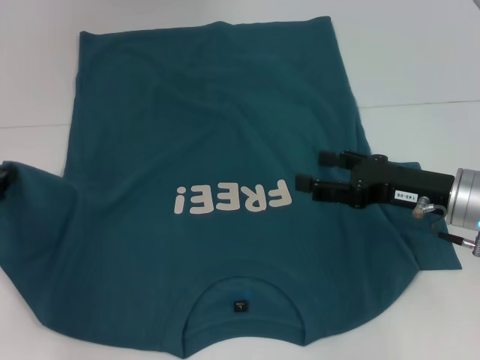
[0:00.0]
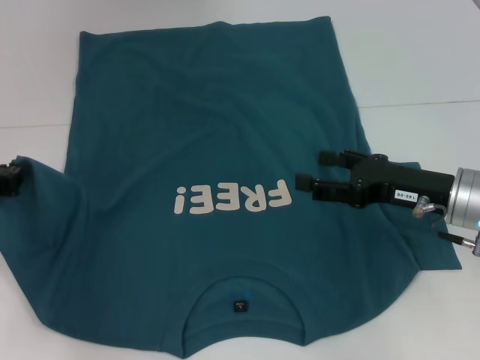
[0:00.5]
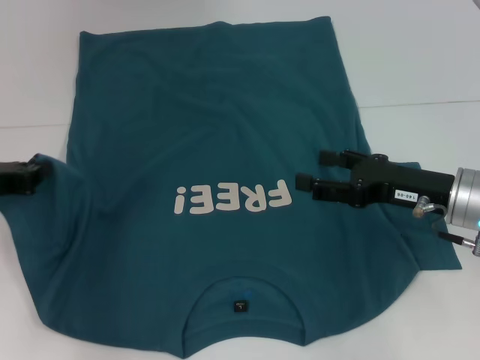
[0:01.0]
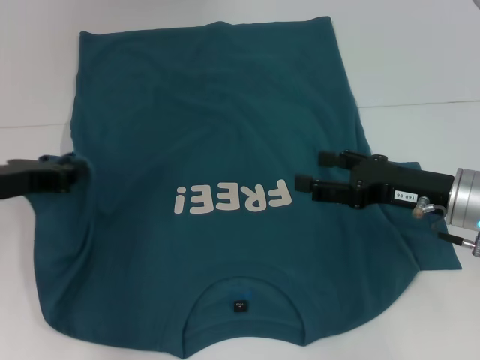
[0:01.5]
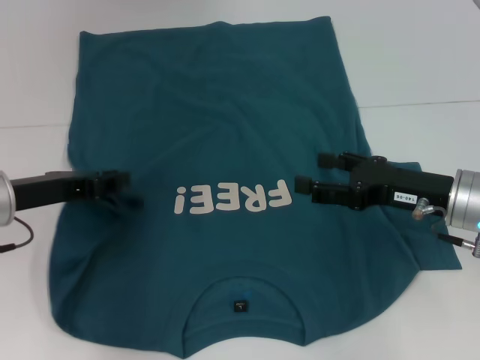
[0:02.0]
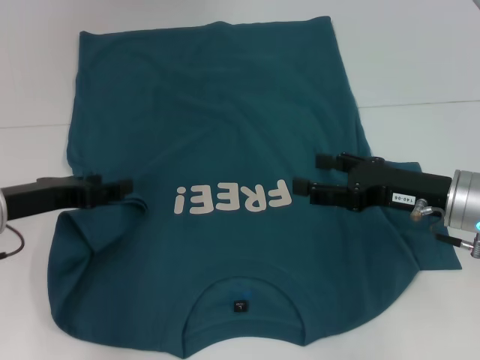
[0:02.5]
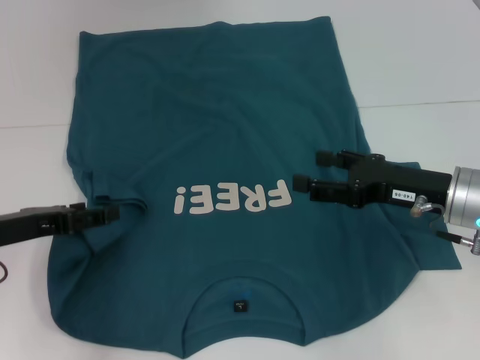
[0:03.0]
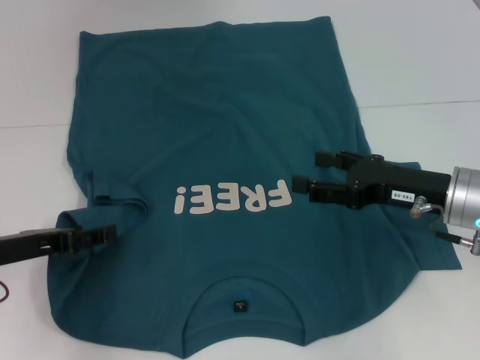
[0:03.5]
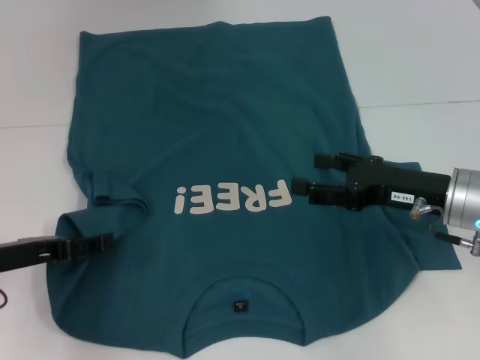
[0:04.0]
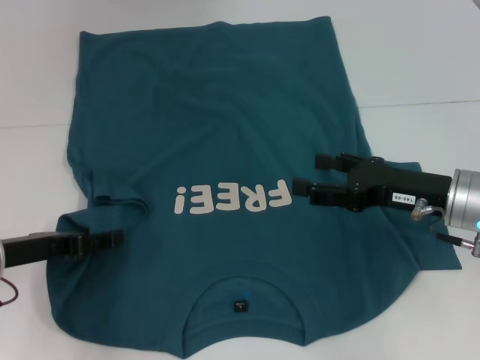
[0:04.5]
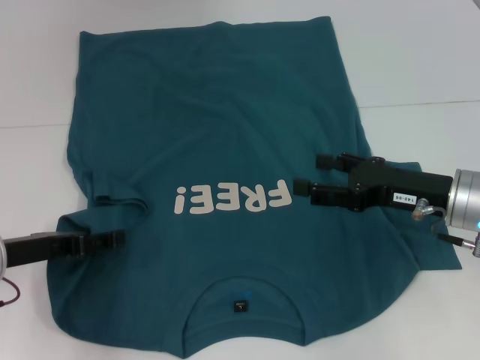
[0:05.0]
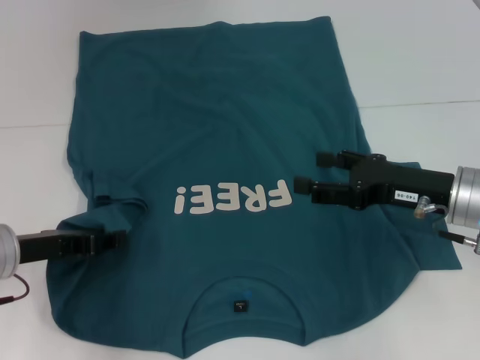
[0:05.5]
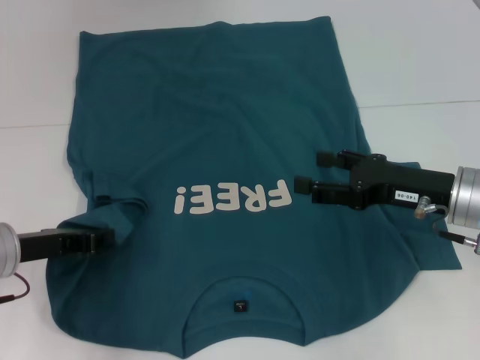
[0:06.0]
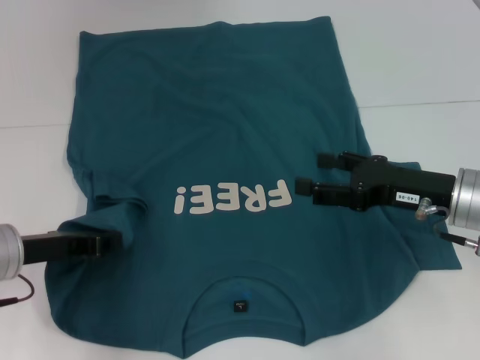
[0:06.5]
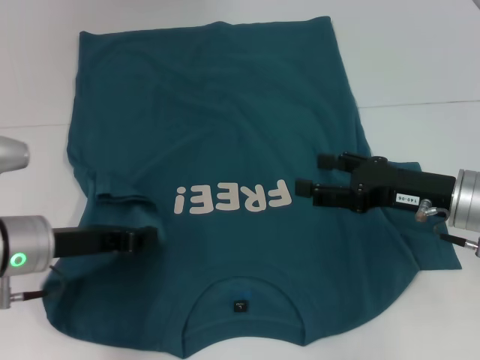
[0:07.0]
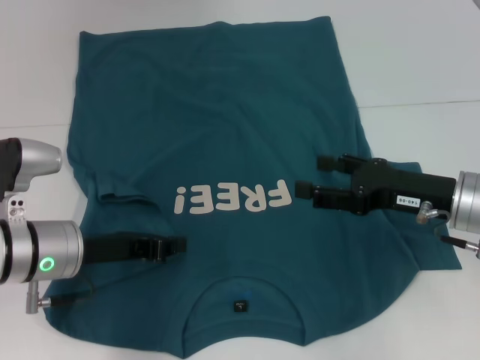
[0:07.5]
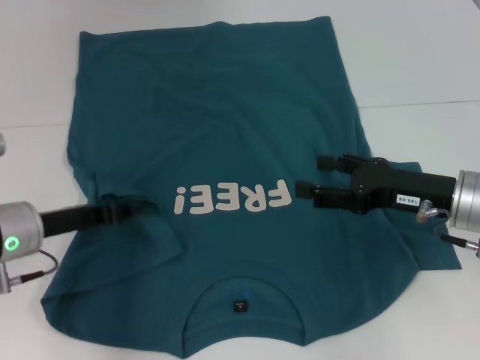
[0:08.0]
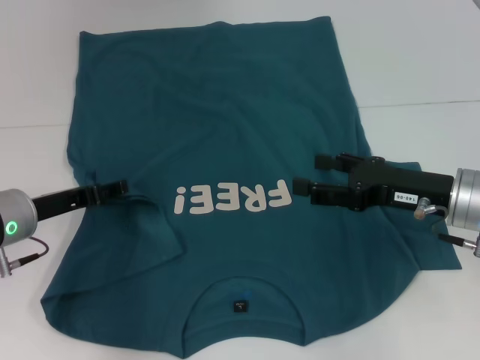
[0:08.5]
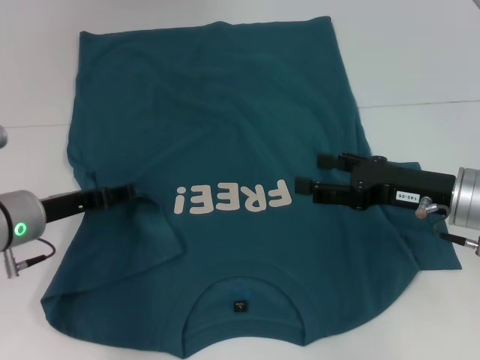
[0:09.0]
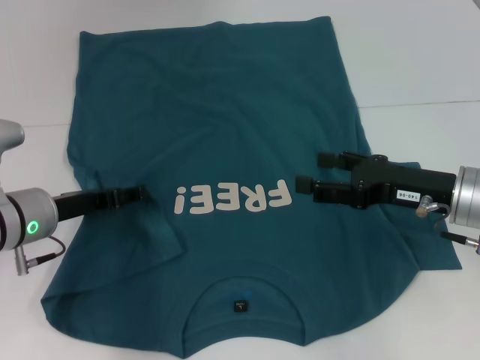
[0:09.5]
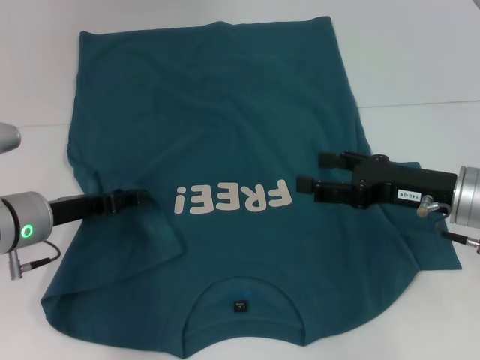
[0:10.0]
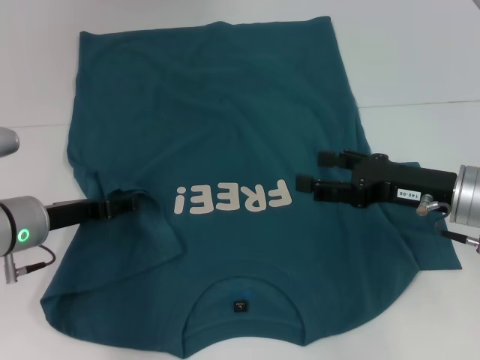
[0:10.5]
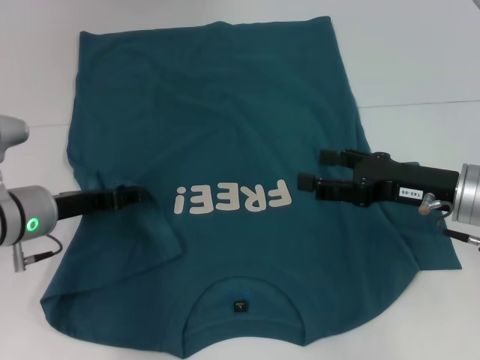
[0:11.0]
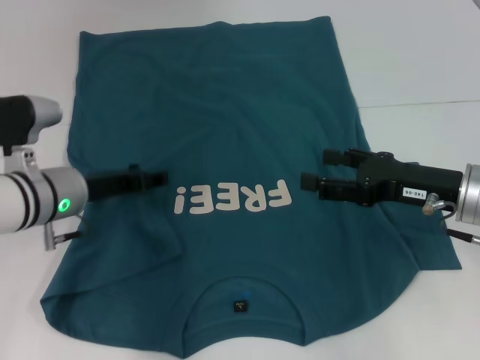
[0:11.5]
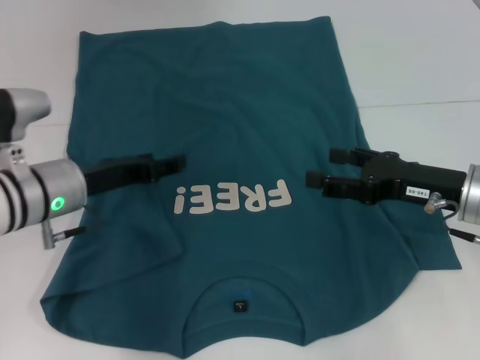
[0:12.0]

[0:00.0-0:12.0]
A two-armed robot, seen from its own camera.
Step, 0:00.0 to 0:12.0: Fold the bottom left sleeve with your left hand.
0:00.0 to 0:02.0: The left gripper heads to the right, covering approximately 10 cm.
0:02.0 to 0:04.0: The left gripper changes place by some 5 cm, and opens its fingers.
0:04.0 to 0:06.0: The left gripper closes up.
0:06.0 to 0:08.0: There are only small adjustments of the grippers.
0:08.0 to 0:10.0: The left gripper opens.
0:10.0 to 0:12.0: There are only small adjustments of the grippers.

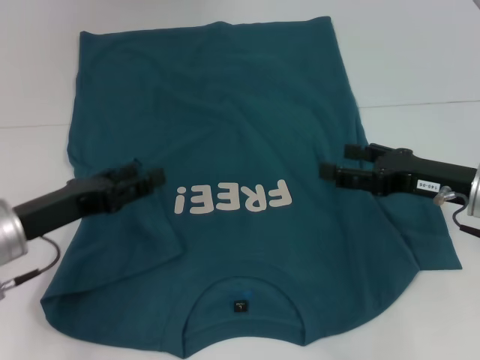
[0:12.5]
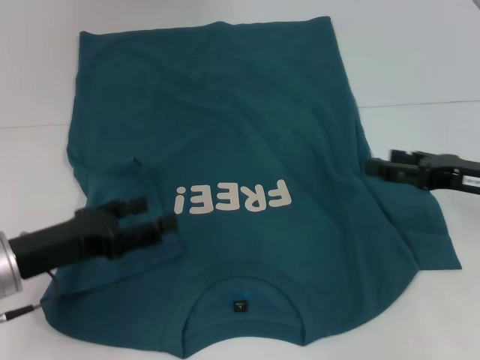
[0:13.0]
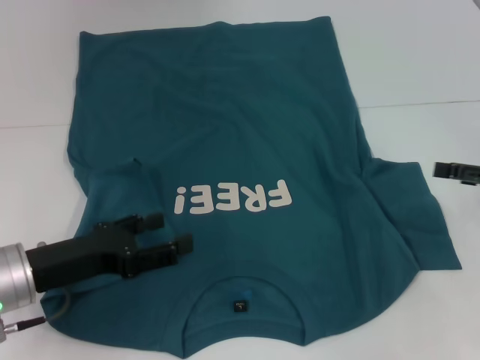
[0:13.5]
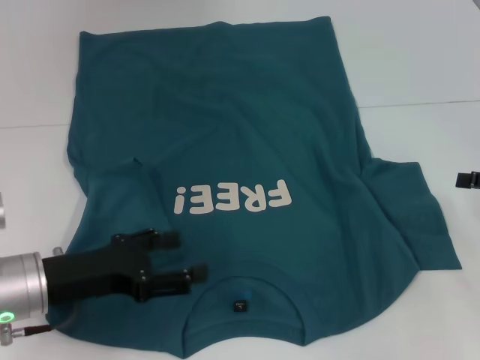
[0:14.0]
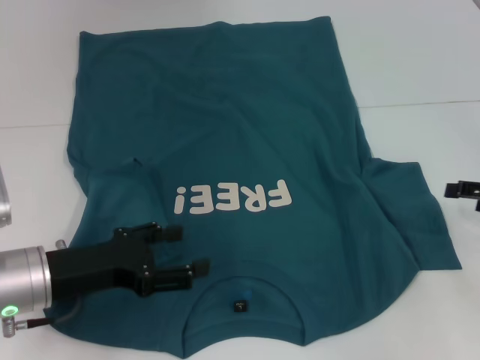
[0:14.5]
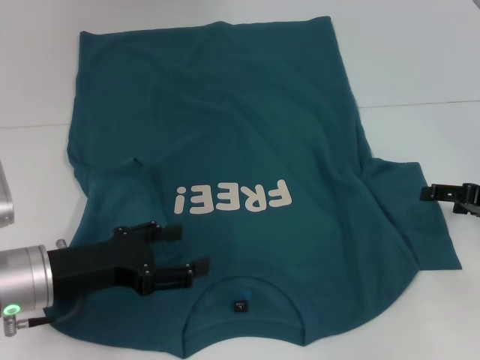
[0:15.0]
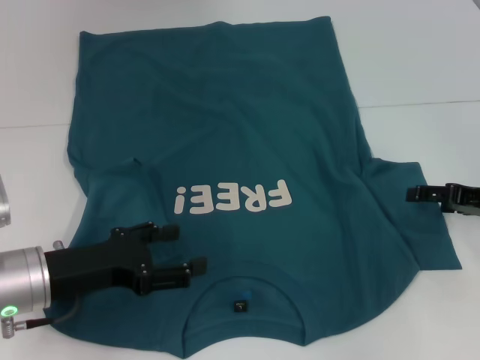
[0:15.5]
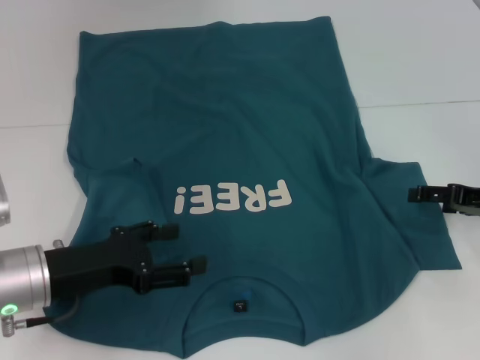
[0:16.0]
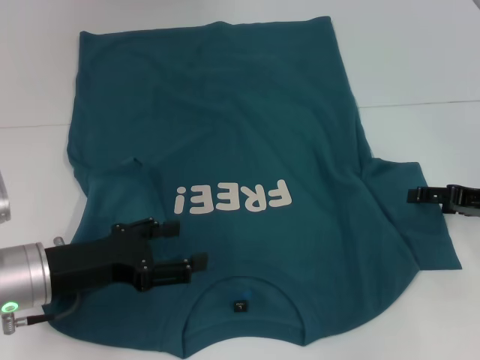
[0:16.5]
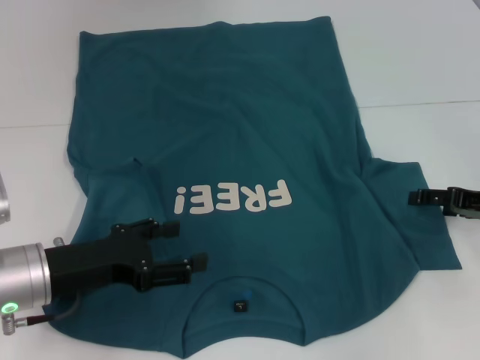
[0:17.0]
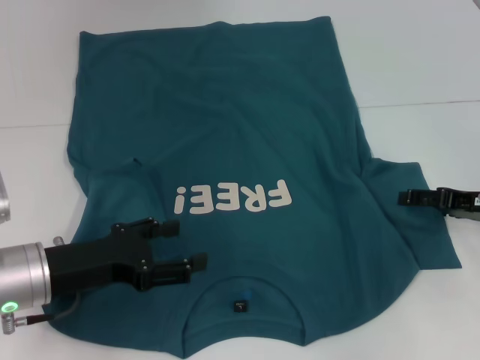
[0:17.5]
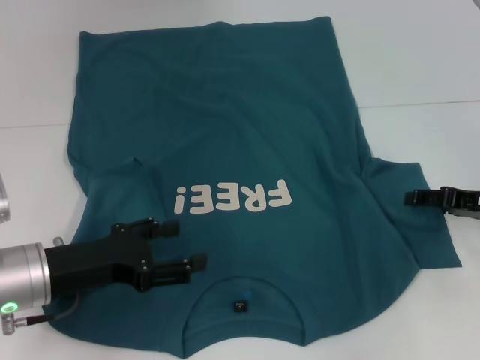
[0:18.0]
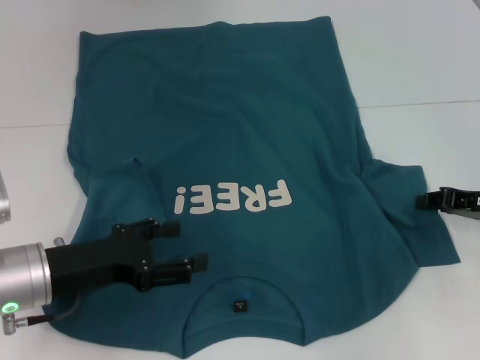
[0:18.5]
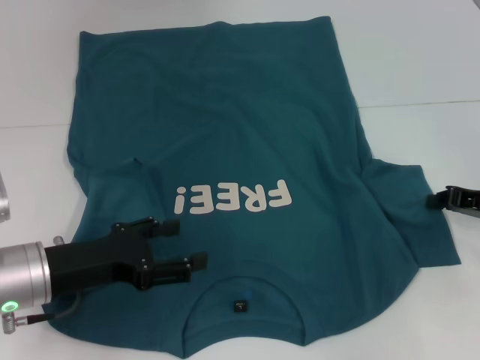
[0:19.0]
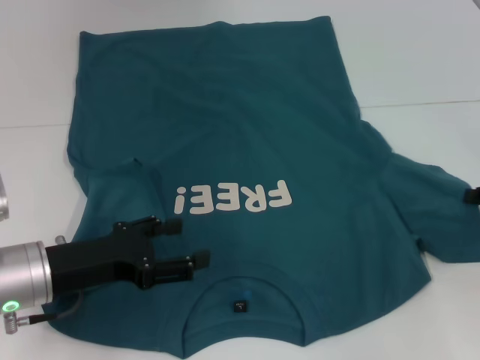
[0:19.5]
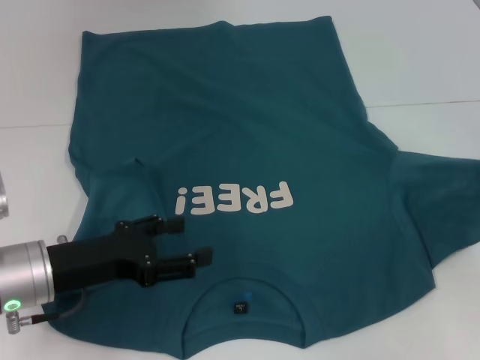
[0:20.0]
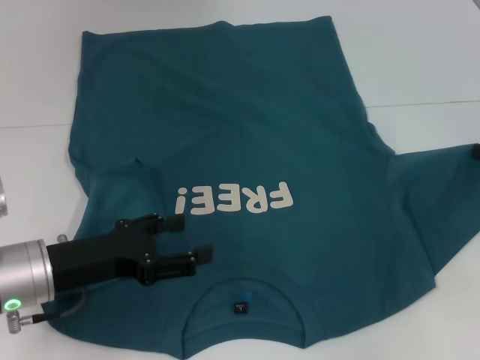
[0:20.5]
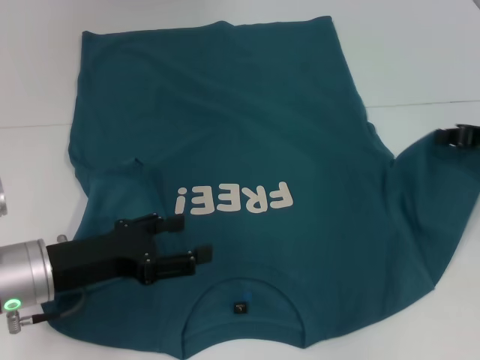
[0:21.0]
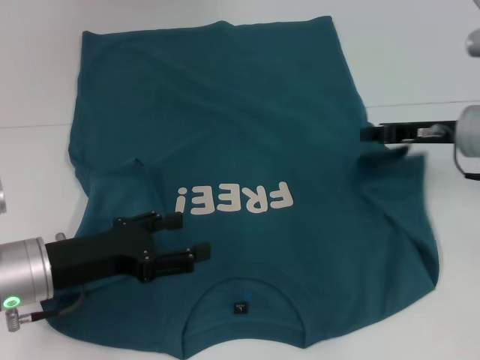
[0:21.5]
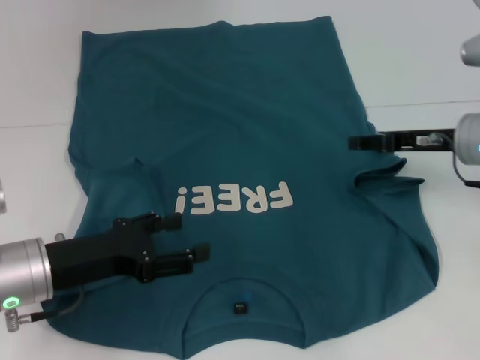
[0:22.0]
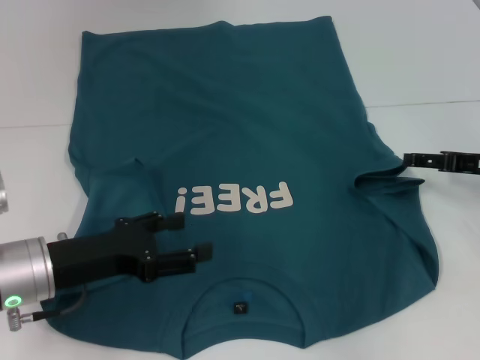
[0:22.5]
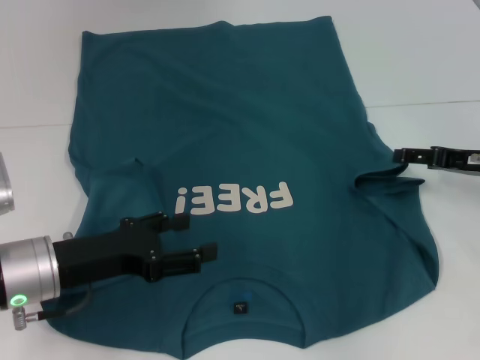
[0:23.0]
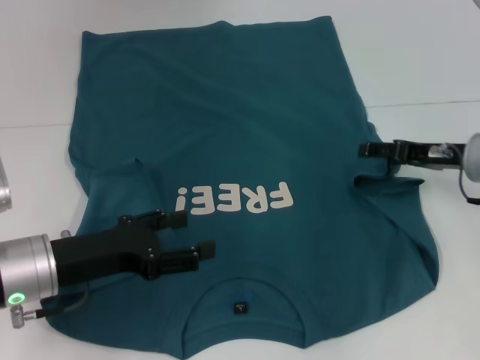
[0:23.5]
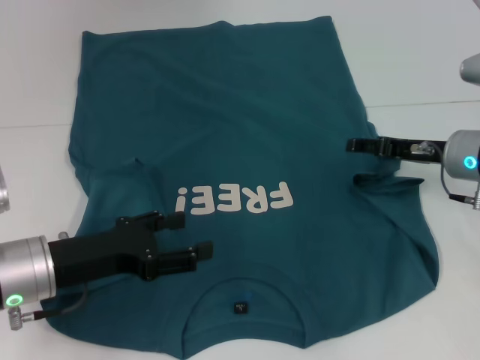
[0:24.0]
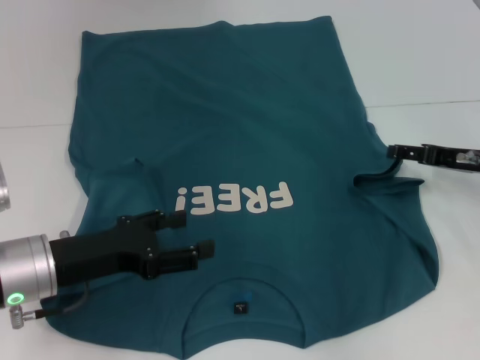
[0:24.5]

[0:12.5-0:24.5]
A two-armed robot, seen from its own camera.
0:12.5 to 0:14.5: The right gripper is displaced to the right by some 10 cm.
0:14.5 to 0:16.5: The grippers move only a little.
0:16.5 to 0:18.5: The right gripper closes up.
0:18.5 to 0:20.5: The right gripper shifts by about 5 cm, and closes up.
0:20.5 to 0:22.5: The right gripper opens its fingers.

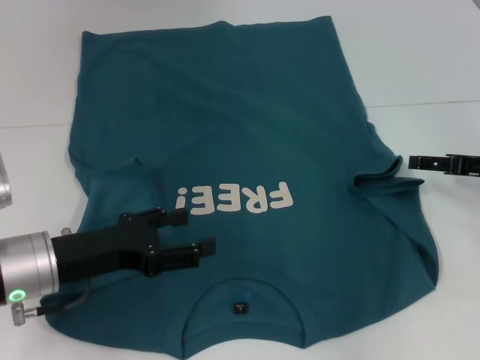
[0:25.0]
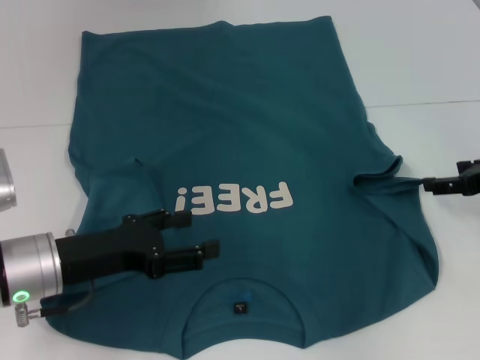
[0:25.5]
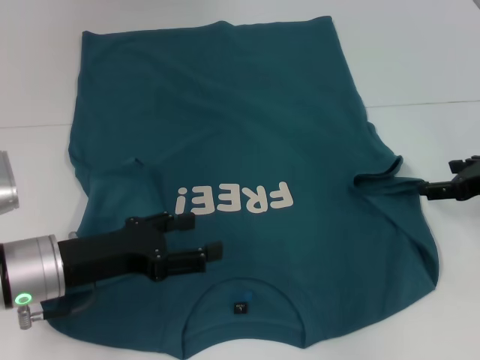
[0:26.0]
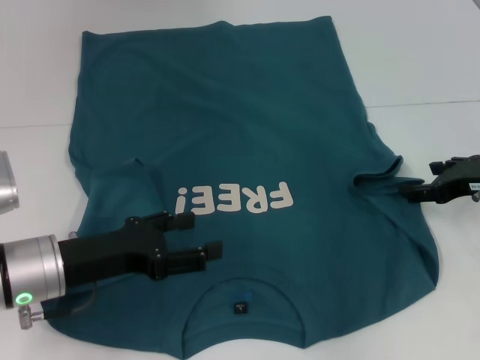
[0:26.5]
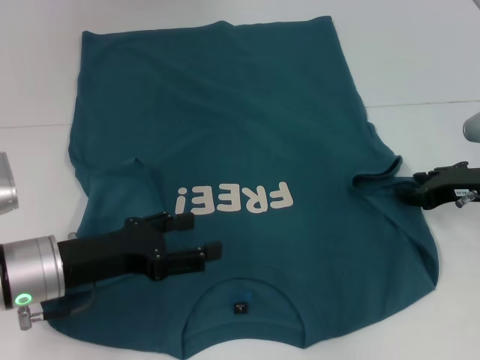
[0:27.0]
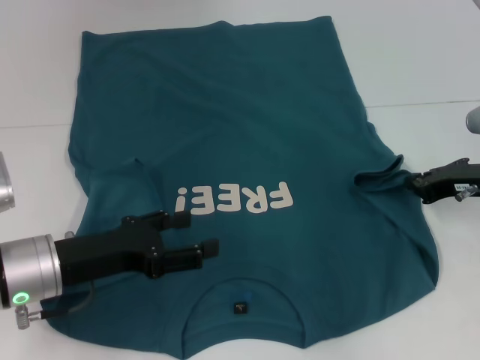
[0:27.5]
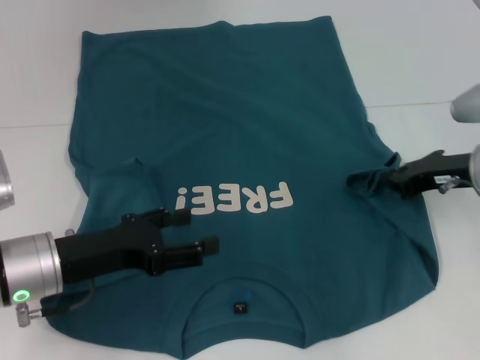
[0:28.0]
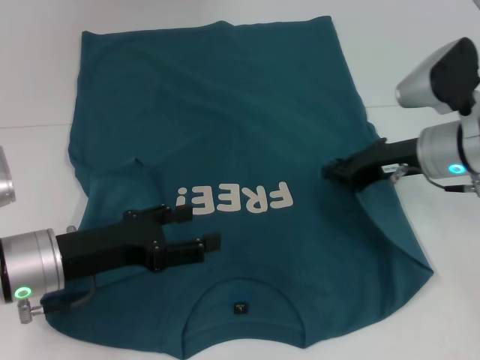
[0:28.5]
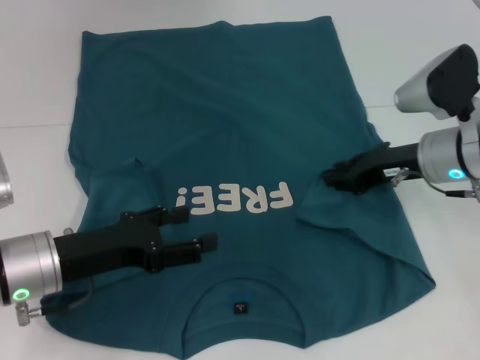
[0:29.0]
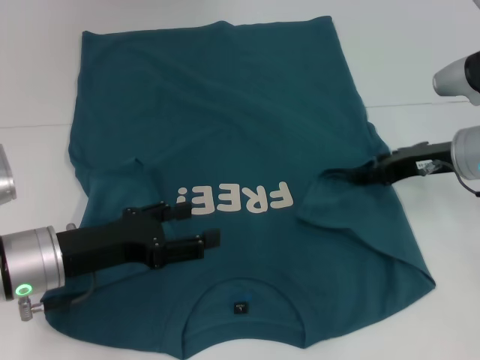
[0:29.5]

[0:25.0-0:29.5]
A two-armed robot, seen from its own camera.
0:27.0 to 0:29.5: The right gripper ends up some 5 cm from where it was, and closes, then reopens.
